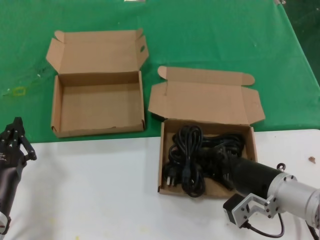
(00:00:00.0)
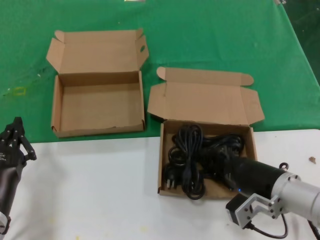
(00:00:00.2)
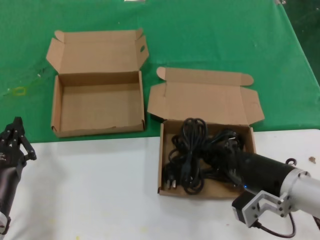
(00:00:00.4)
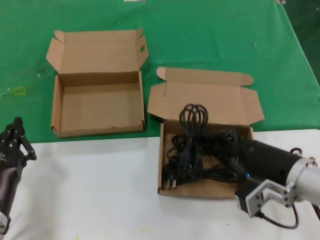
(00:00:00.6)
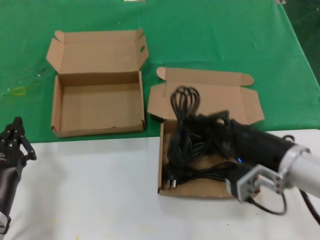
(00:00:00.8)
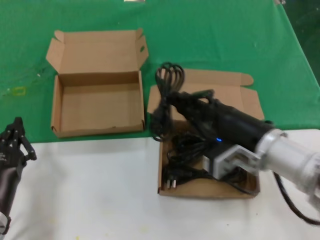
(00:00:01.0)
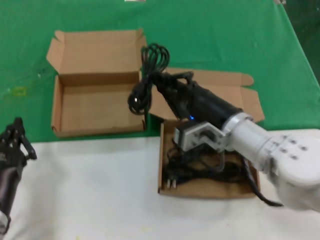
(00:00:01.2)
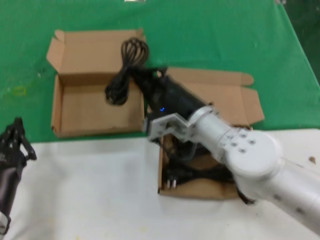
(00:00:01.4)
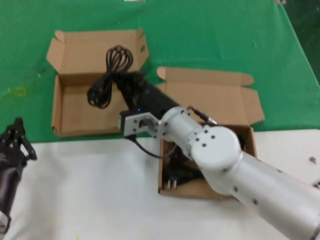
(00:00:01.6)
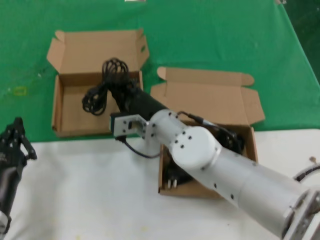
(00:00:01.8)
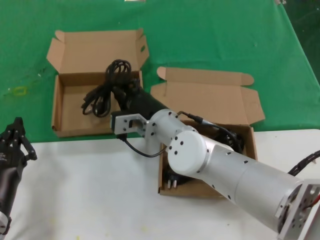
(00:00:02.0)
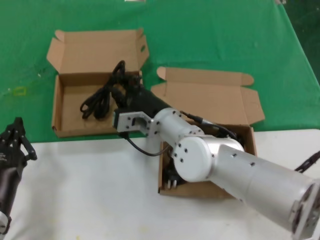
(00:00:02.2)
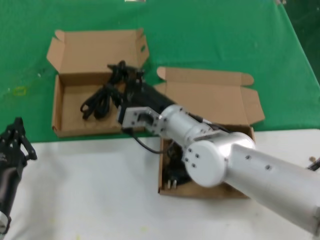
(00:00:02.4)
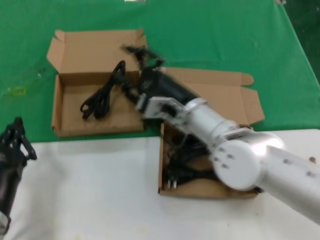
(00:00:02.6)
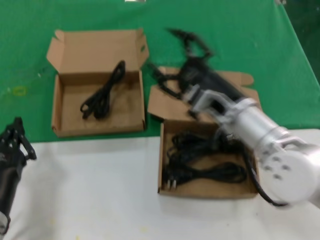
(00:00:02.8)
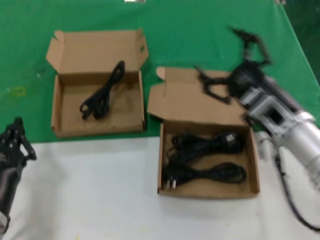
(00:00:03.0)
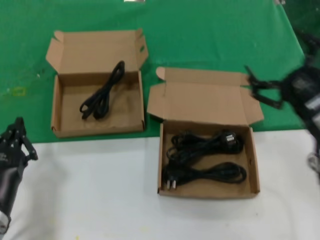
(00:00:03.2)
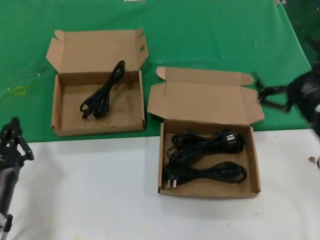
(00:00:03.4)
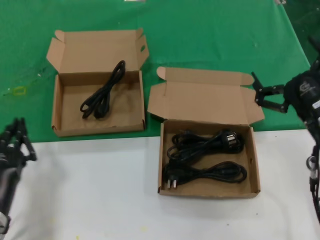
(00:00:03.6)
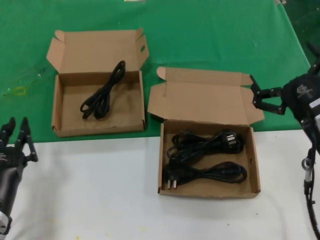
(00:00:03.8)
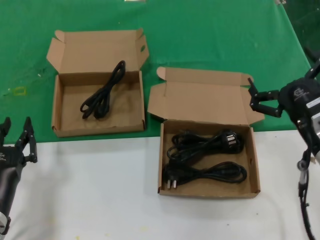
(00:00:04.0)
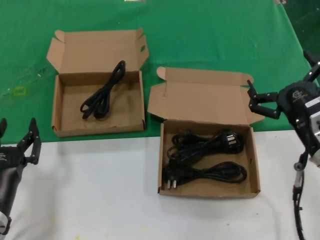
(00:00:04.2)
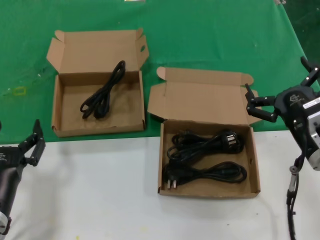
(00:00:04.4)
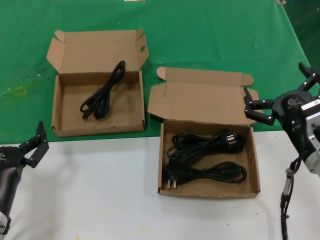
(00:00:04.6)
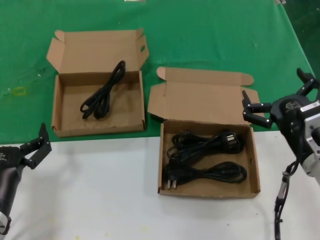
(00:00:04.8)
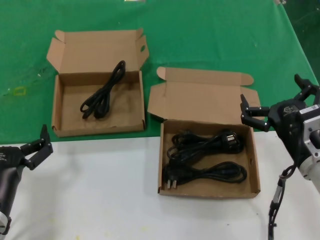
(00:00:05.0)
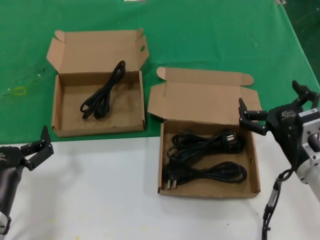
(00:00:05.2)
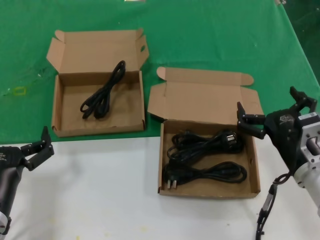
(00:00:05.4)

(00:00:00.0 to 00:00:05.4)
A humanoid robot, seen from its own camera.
Task of the whole recording: pick up the paper box and put it at the back.
Step, 00:00:00.2 - 00:00:02.0: Place the data cable in the another box.
00:00:00.0 - 00:00:01.4: The right hand goes about 15 cm to the left, forward and upward.
00:00:01.4 - 00:00:02.8: The right hand moves some 10 cm to the left and comes back.
00:00:02.8 - 00:00:04.0: The right hand travels to the right and backward by roughly 15 cm.
